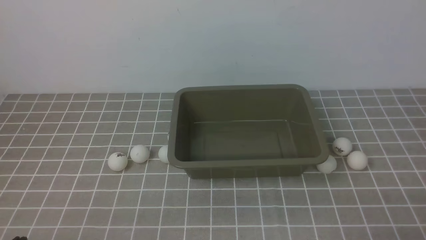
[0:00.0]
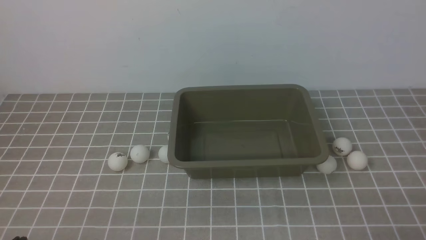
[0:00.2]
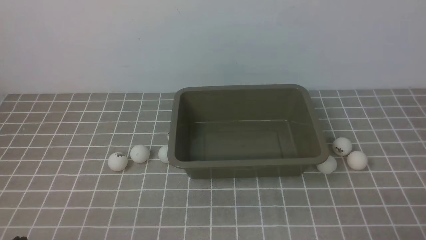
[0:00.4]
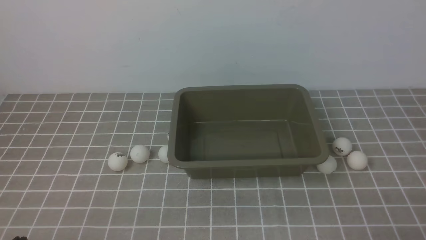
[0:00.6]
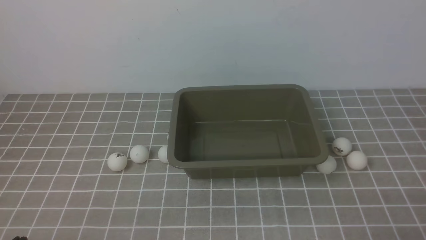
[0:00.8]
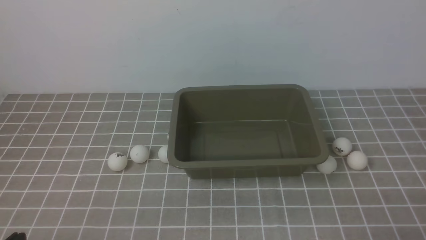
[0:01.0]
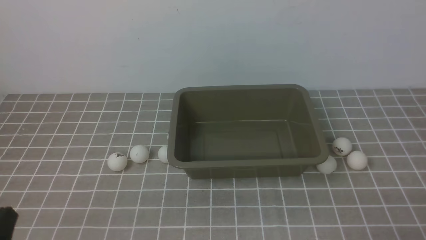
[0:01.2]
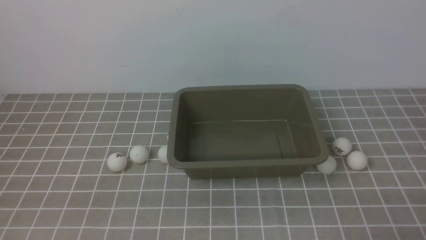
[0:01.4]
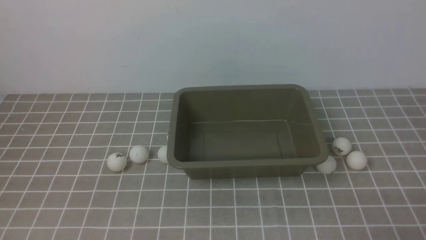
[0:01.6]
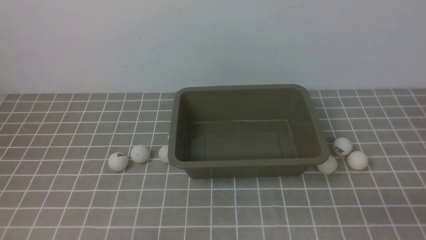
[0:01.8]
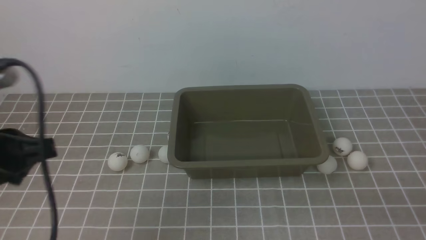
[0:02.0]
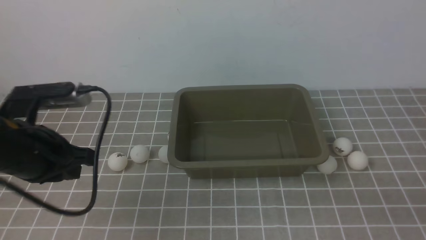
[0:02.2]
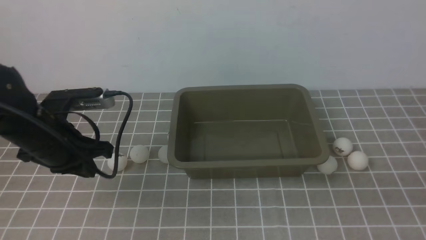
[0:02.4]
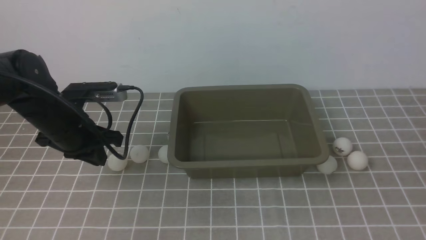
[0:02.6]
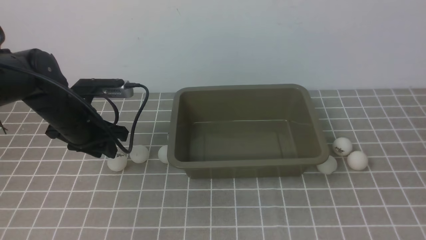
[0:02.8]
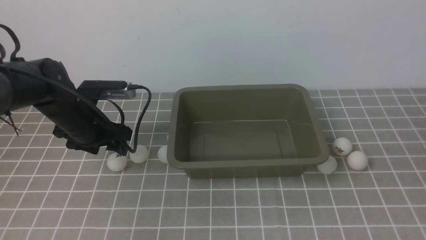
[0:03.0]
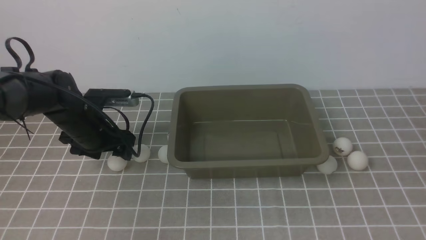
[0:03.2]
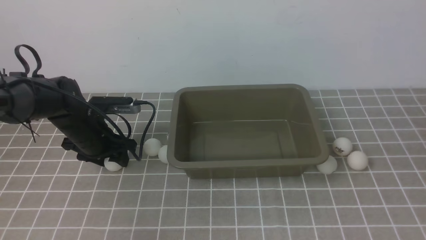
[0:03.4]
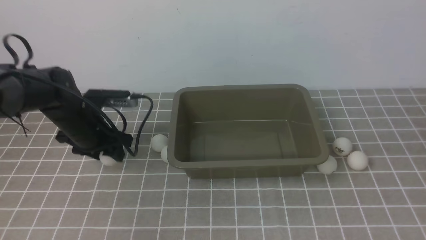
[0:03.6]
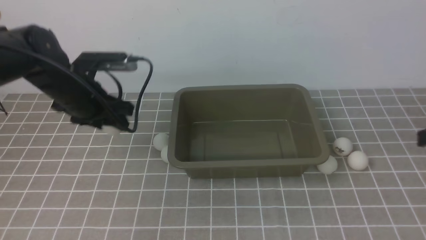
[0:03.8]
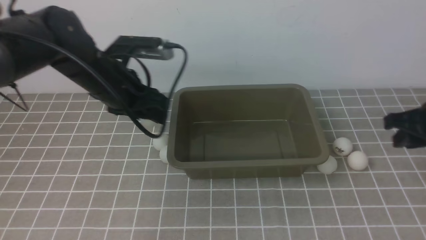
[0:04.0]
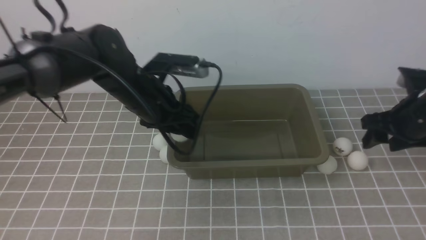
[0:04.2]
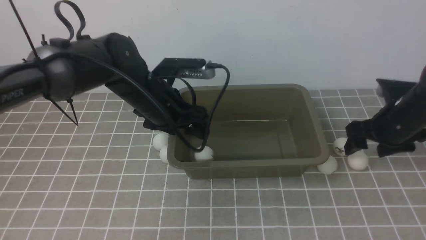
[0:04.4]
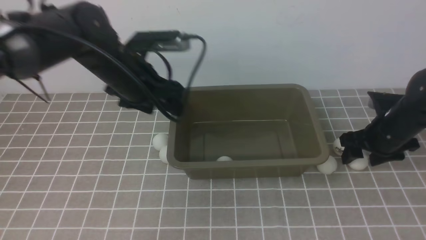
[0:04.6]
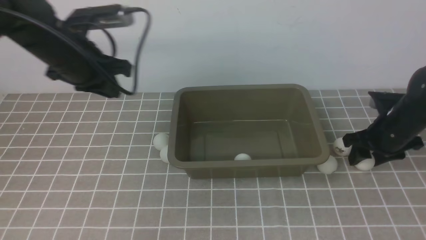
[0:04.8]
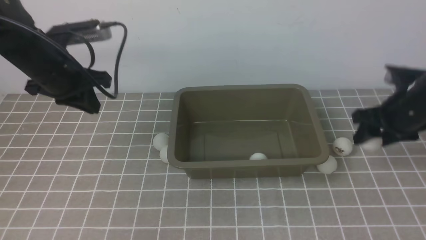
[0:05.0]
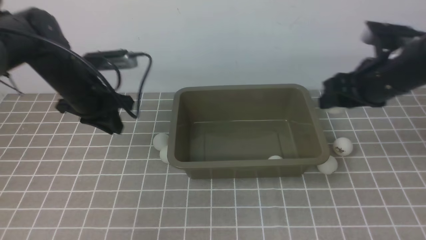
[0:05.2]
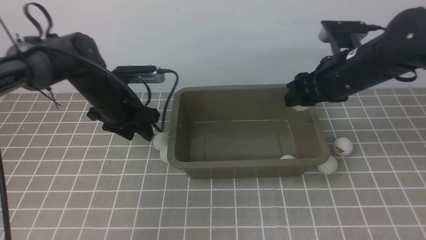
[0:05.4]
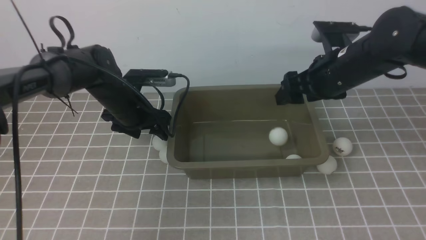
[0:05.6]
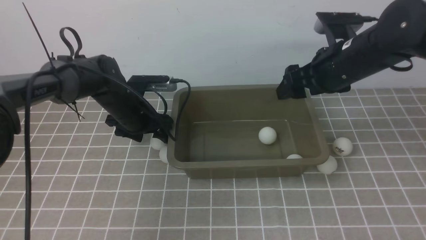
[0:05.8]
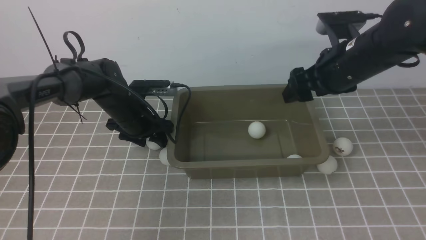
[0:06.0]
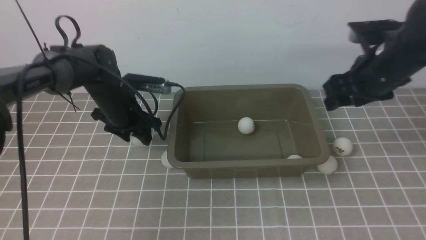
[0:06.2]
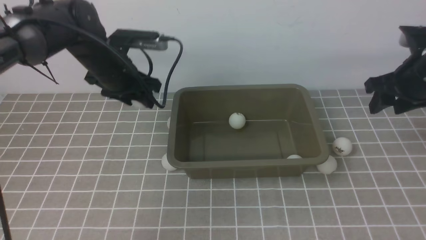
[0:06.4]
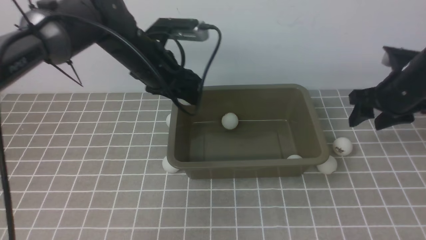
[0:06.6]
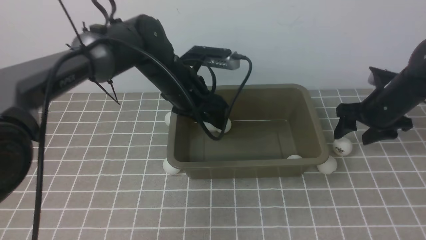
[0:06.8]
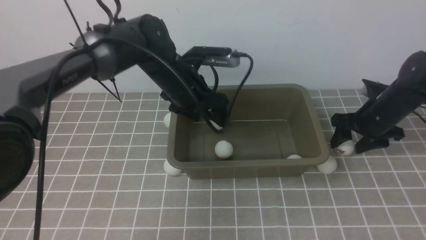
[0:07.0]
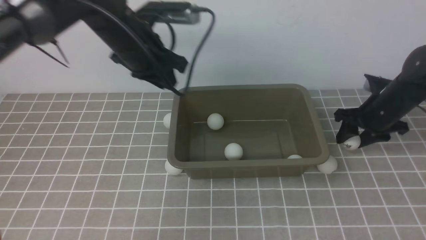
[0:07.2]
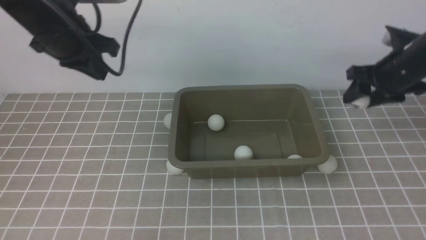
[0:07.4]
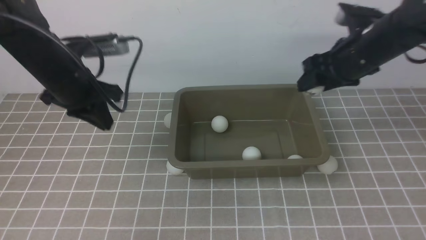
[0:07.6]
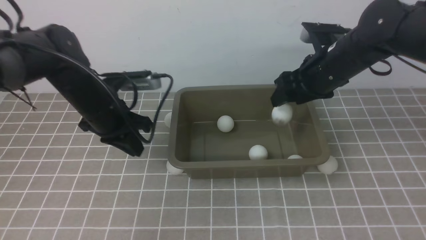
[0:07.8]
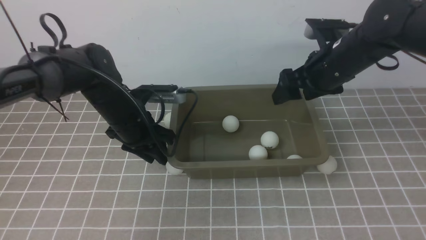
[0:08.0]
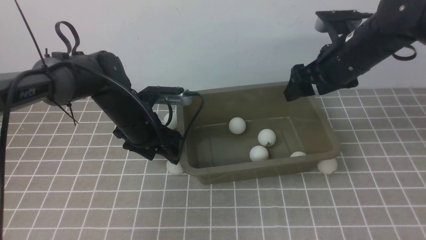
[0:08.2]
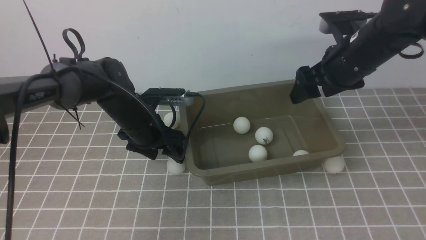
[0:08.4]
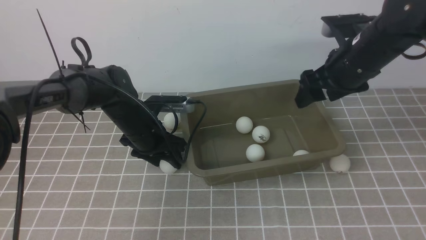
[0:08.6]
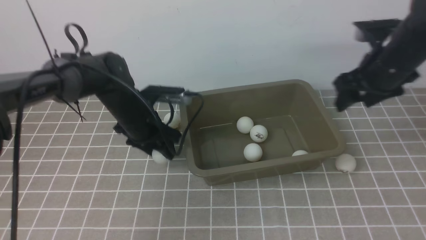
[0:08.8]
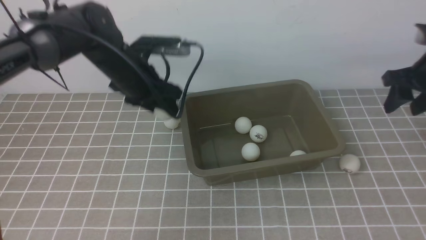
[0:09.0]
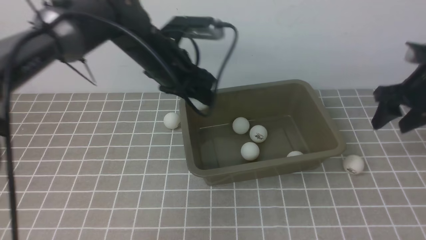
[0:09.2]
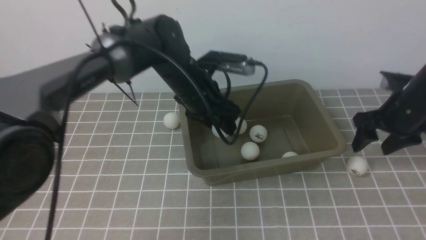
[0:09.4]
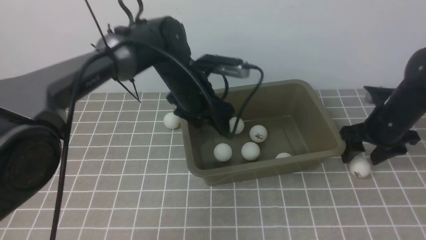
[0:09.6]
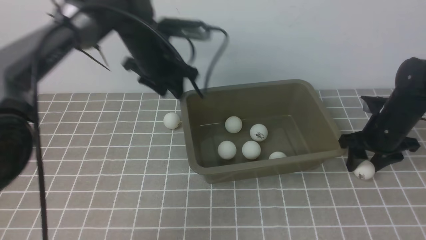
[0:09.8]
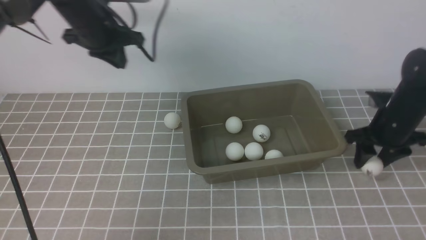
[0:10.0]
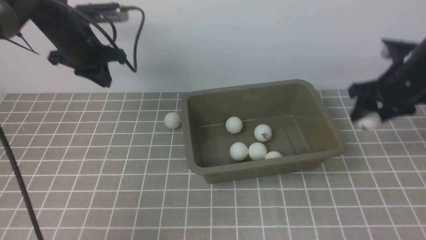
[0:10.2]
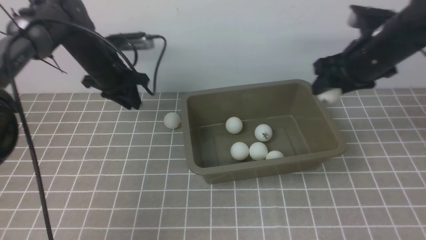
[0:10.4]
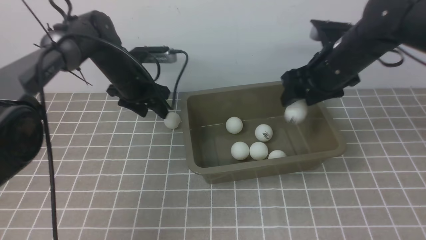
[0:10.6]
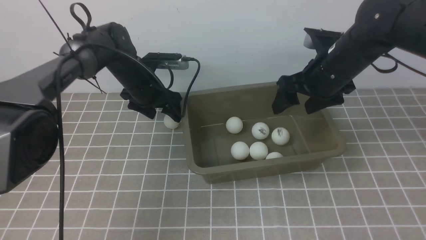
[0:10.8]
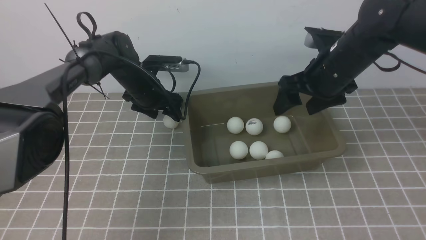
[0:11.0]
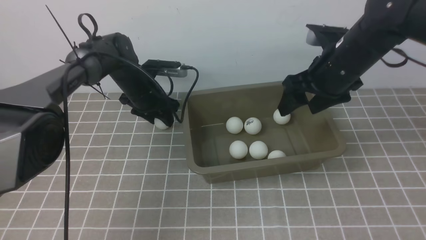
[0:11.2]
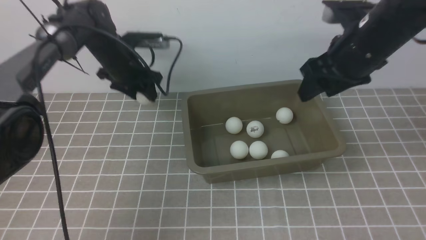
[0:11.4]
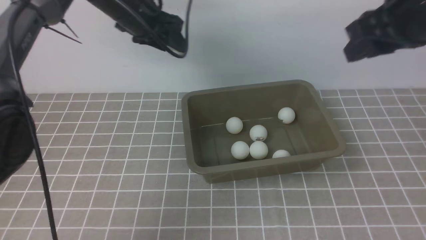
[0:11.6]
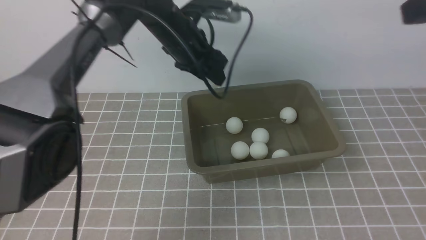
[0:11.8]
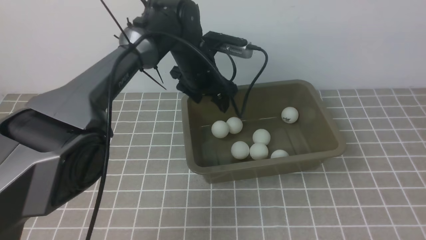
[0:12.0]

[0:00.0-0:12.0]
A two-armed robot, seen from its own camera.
Step, 0:00.0 to 0:03.6: use the left arm to clamp the table tennis ball closest to it.
Step, 0:03.8 to 0:04.4: use the left arm to put the table tennis ball into the box.
Step, 0:04.6 to 0:05.0: use the right arm to clamp the table tennis ball closest to it.
Step, 0:05.2 to 0:05.6: use the right arm to put the table tennis ball into the box.
Step, 0:05.8 to 0:06.2: use the left arm to clamp the table tennis ball closest to it.
Step, 0:06.4 to 0:06.8: use the left arm to put the table tennis ball into the box.
Step, 0:07.0 to 0:07.2: use the right arm to clamp the table tennis ball closest to it.
Step, 0:07.4 to 0:08.2: use the right arm to put the table tennis ball into the box.
Step, 0:08.4 to 0:08.8: use the left arm to clamp the table tennis ball closest to it.
Step, 0:09.0 to 0:09.4: use the left arm to put the table tennis ball into the box.
Step, 0:09.8 to 0:10.0: use the right arm to clamp the table tennis ball closest to it.
Step, 0:10.4 to 0:10.6: use the right arm to put the table tennis ball into the box.
Step, 0:10.8 to 0:11.4: use the left arm to clamp the table tennis ball closest to it.
0:01.6 to 0:03.0: The right gripper shifts approximately 15 cm upward. Meanwhile the left gripper moves forward, roughly 30 cm, and opens.
0:03.0 to 0:04.4: The right gripper moves forward and downward, some 30 cm, and opens, while the left gripper heads to the right and upward, covering about 15 cm.
0:04.4 to 0:06.0: The right gripper goes roughly 15 cm upward and to the left. The left gripper is displaced downward, forward and to the left by some 10 cm, and closes, then reopens.
0:06.0 to 0:07.6: The right gripper moves about 10 cm downward and comes back; the left gripper moves upward and backward, about 10 cm, and closes.
0:07.6 to 0:09.0: The two grippers go approximately 10 cm to the right. The left gripper travels downward and back again, some 10 cm each way, and opens.
0:09.0 to 0:10.4: The right gripper heads to the left, covering roughly 10 cm, and travels downward and back again, about 10 cm each way. The left gripper heads to the left and forward, covering approximately 10 cm.
0:10.4 to 0:12.0: The left gripper goes roughly 15 cm to the right, and opens its fingers. Meanwhile the right gripper heads backward and upward, covering about 30 cm, and closes.

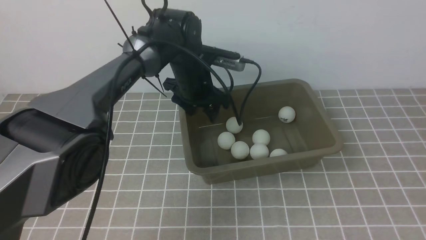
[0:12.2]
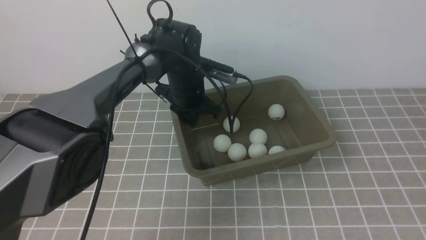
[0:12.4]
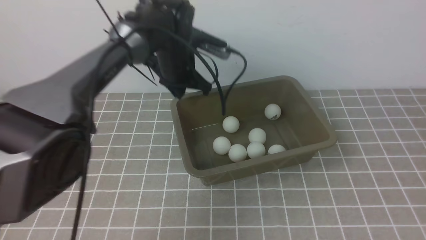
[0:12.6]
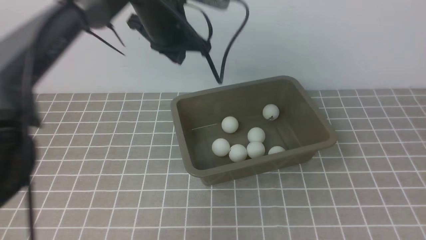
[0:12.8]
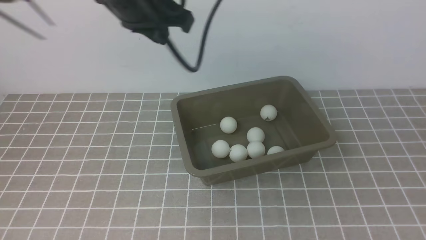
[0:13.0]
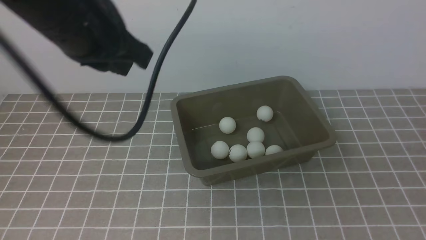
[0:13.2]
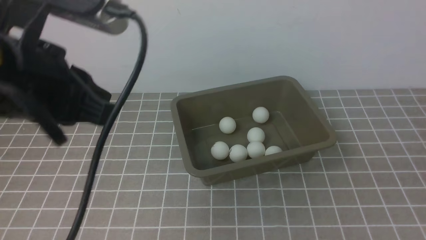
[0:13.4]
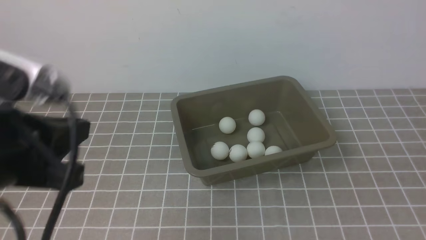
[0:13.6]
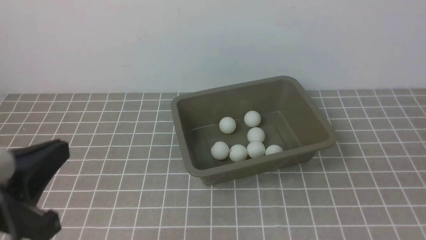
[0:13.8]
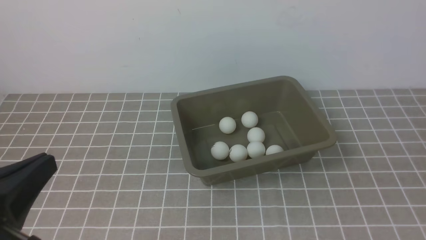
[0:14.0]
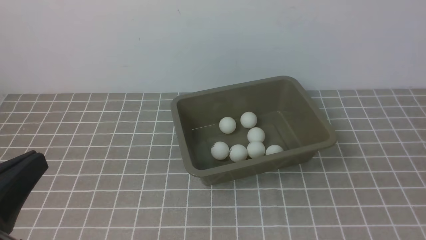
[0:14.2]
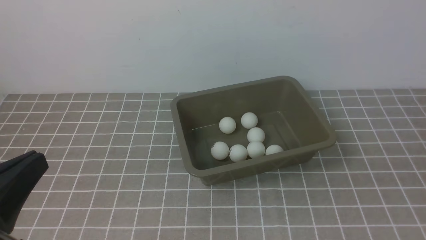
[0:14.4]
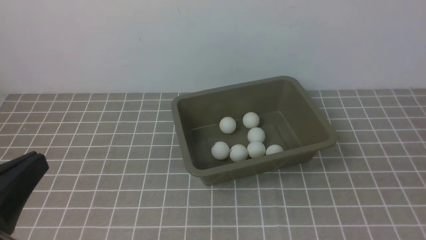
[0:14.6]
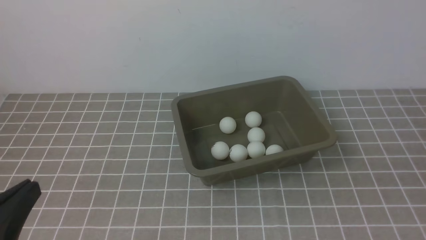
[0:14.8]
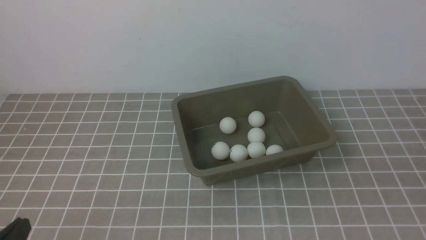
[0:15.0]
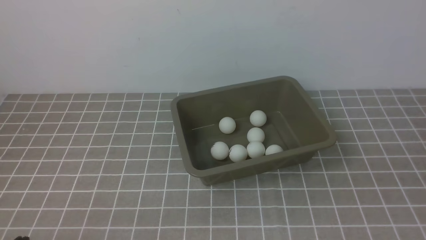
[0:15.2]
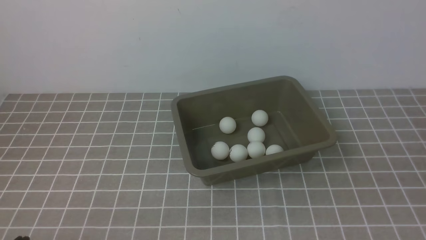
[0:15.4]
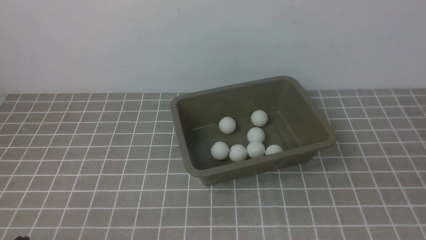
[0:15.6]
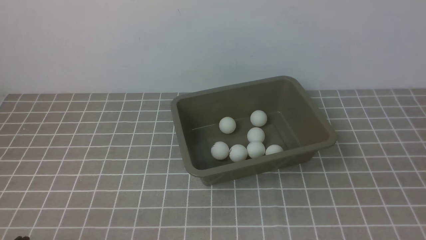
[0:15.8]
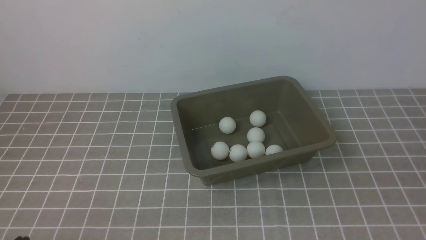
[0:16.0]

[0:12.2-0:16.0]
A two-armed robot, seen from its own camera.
0:12.2 to 0:13.4: The right gripper shifts some 15 cm downward and backward. The left gripper heads backward, upward and to the left, covering roughly 35 cm, and closes its fingers.
0:13.4 to 0:14.8: The left gripper moves downward, backward and to the left, roughly 20 cm.
0:14.8 to 0:16.0: The left gripper shifts approximately 10 cm downward.
